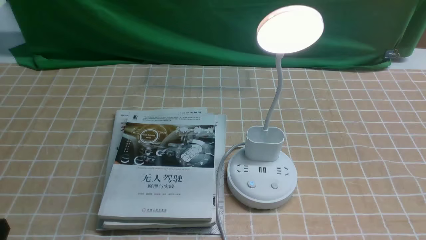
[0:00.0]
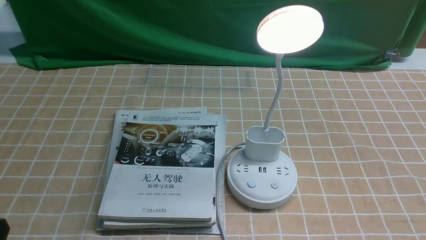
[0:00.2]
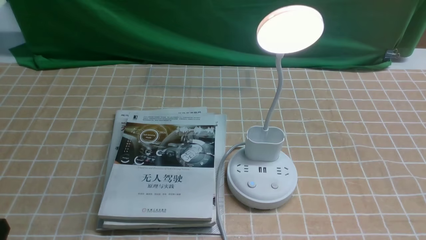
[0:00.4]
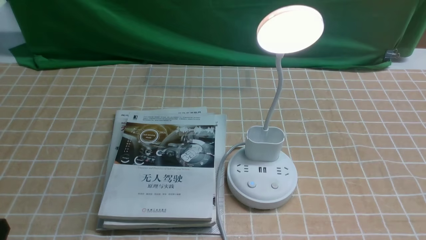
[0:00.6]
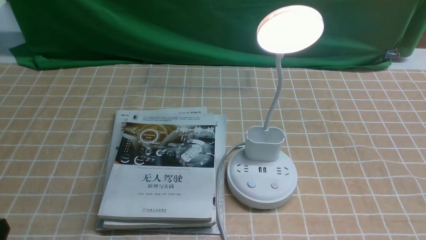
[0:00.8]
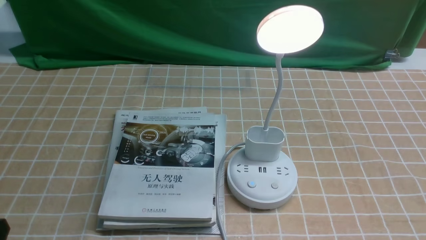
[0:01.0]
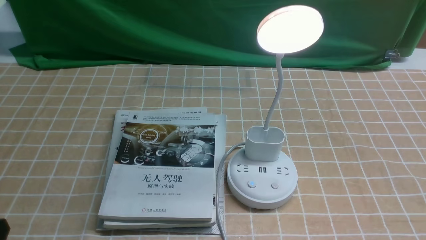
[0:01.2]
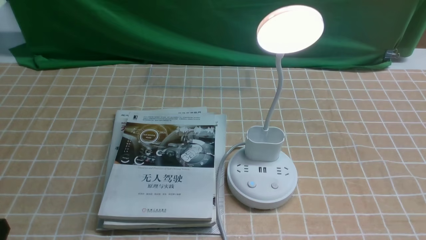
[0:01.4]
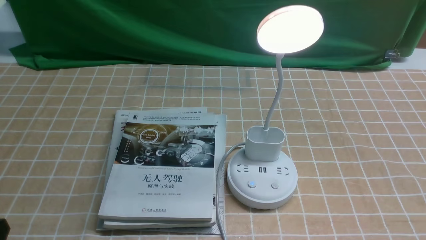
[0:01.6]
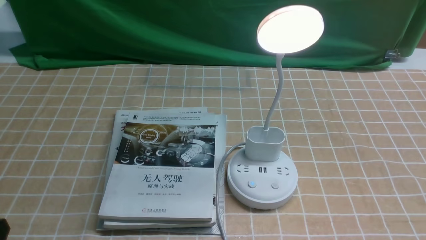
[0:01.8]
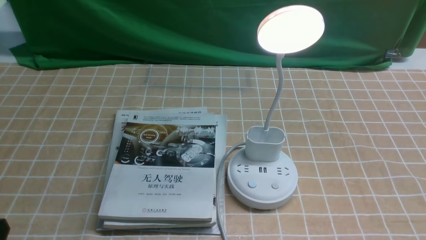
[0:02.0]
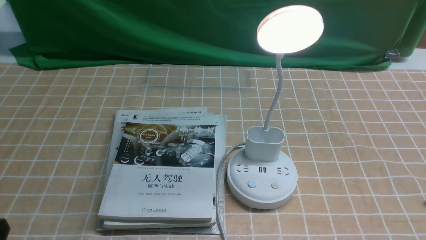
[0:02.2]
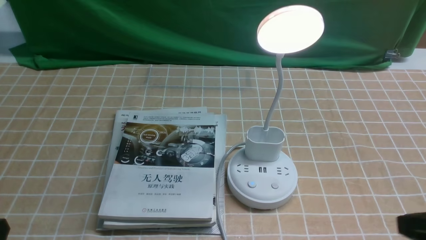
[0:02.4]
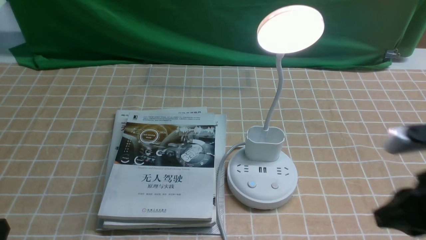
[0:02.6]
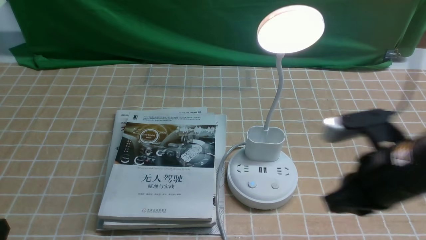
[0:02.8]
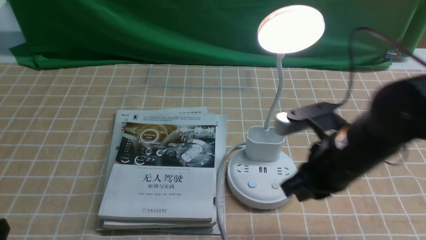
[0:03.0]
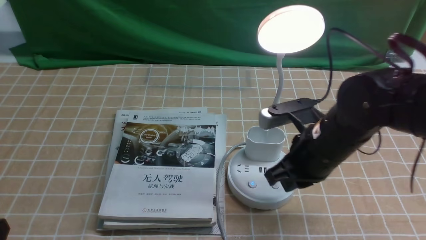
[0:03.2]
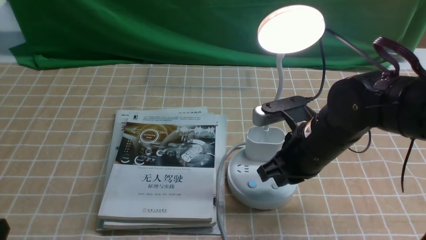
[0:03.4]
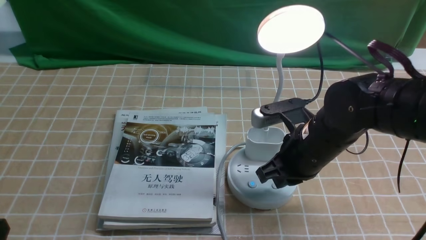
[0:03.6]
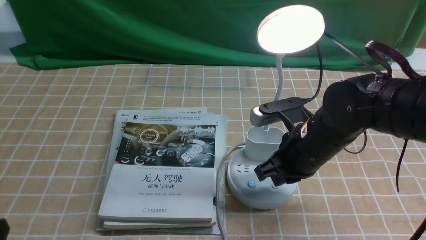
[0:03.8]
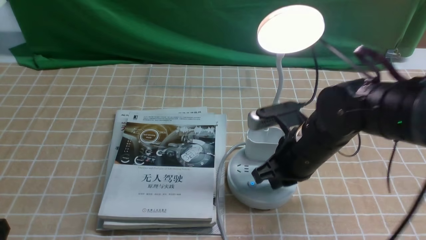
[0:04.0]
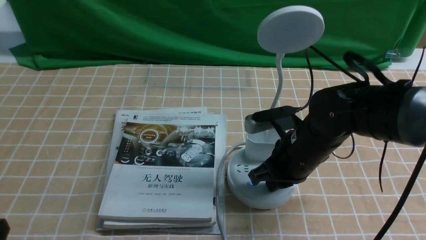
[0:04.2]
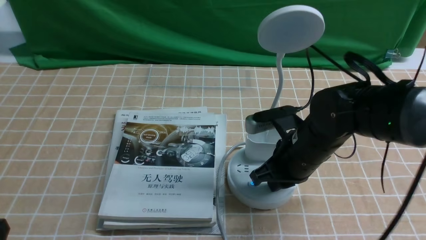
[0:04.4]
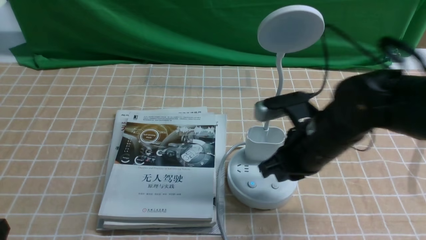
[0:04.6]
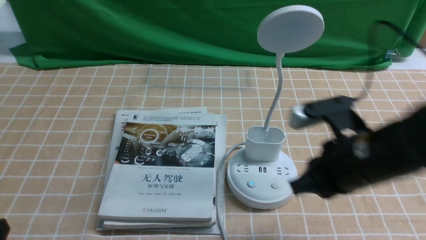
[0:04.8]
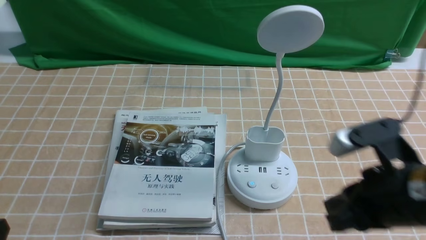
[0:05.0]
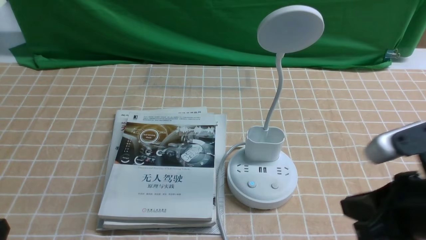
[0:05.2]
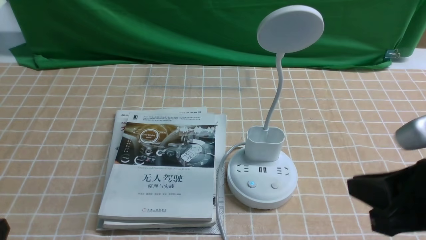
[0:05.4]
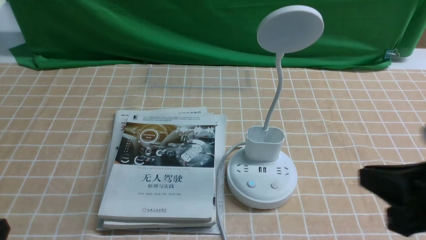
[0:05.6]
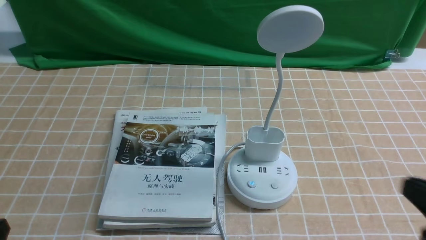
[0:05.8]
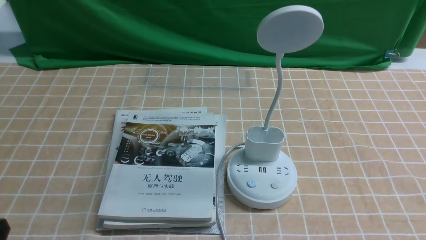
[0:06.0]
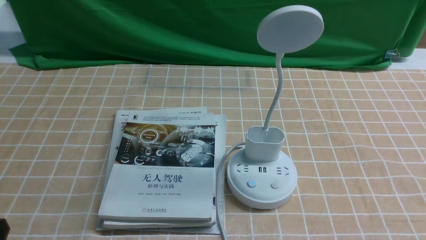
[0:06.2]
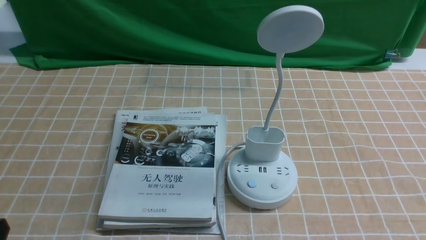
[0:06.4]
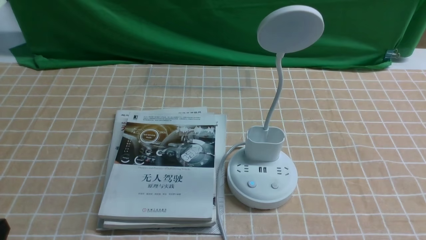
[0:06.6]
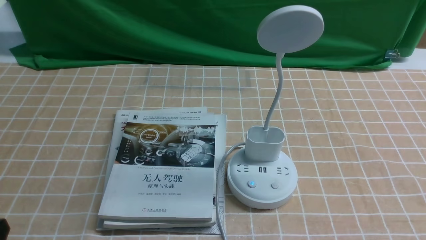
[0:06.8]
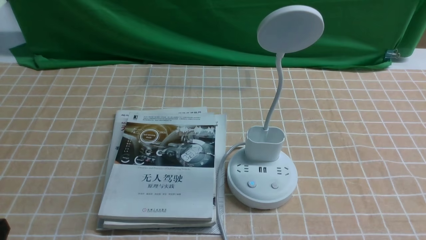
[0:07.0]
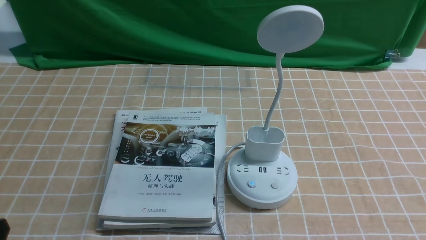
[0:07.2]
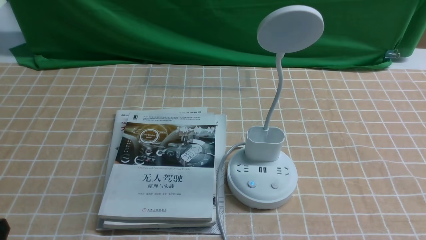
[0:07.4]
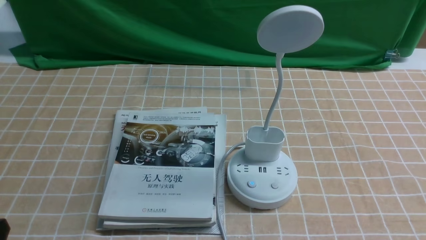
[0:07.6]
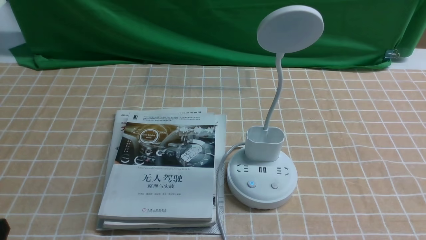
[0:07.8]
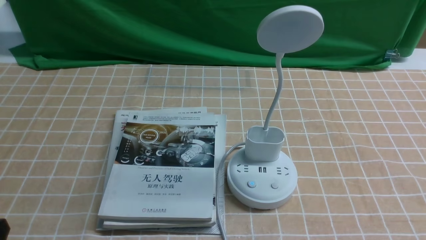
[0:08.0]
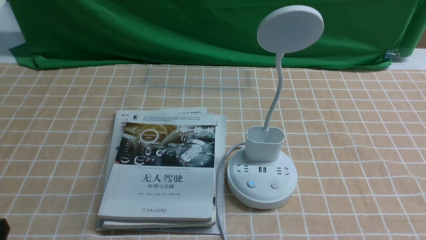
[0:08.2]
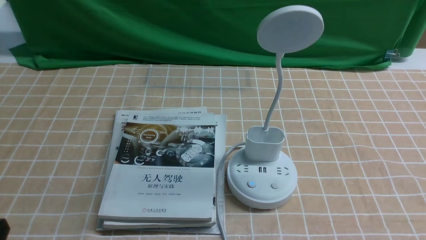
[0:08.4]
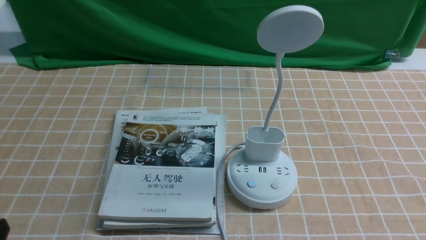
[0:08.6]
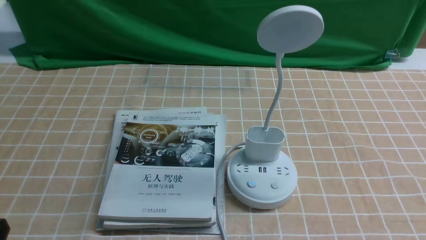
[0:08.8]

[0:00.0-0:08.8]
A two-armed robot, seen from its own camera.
Task of the whole recording: turn off the desk lamp on the light coffee tablecloth by hand.
Step, 0:00.0 to 0:04.6: use the right arm to press the button switch on the lamp holder.
0:01.4 to 0:03.0: The right gripper travels forward and to the left by roughly 25 cm, and closes its fingers.
0:03.0 to 0:04.4: The right gripper changes place by about 5 cm.
0:04.4 to 0:05.8: The right gripper is displaced backward and to the right by approximately 25 cm.
0:05.8 to 0:07.4: The right gripper moves downward, roughly 5 cm.
